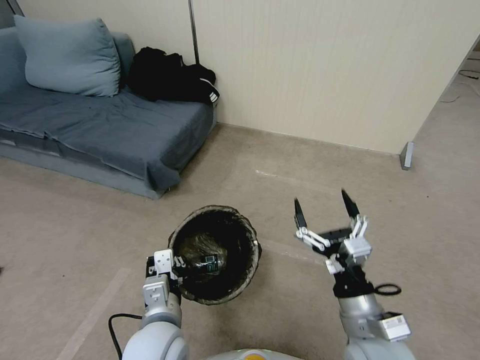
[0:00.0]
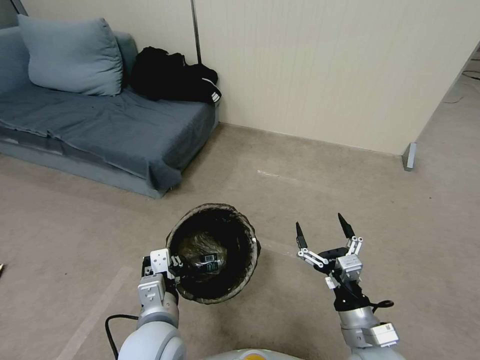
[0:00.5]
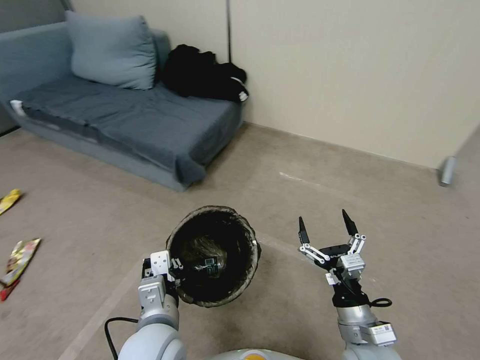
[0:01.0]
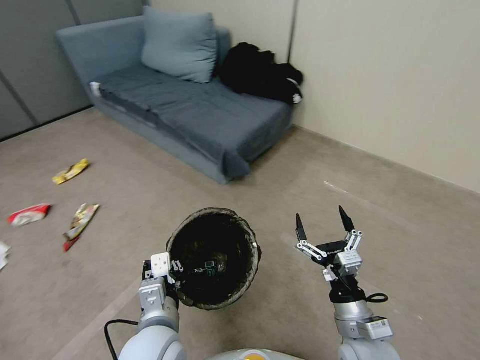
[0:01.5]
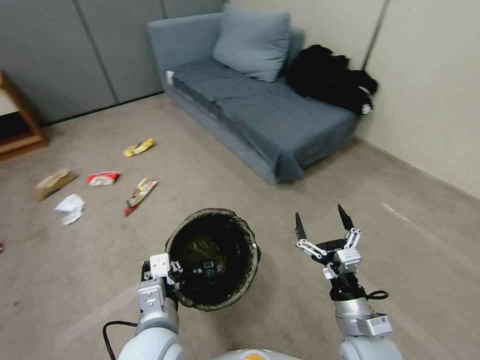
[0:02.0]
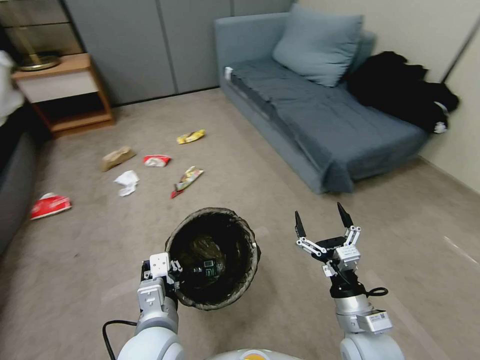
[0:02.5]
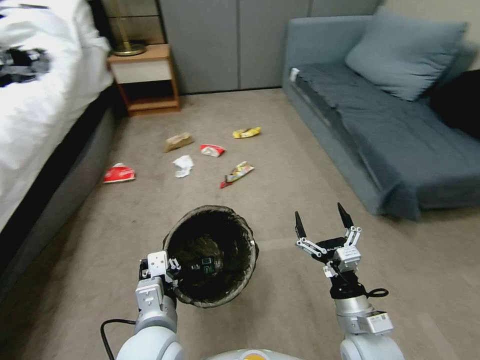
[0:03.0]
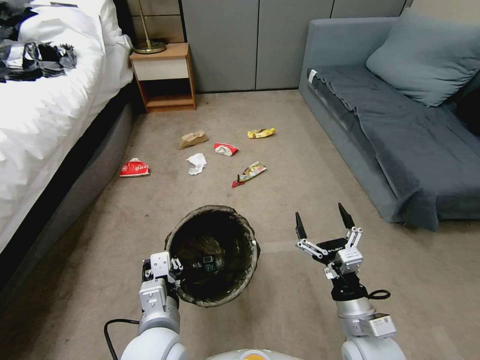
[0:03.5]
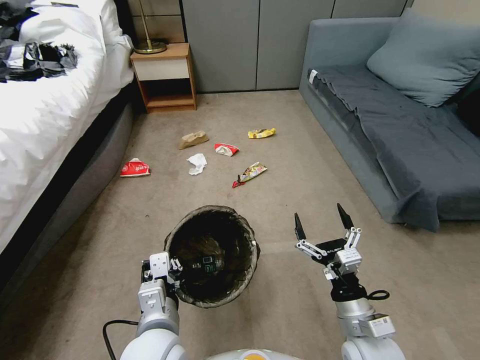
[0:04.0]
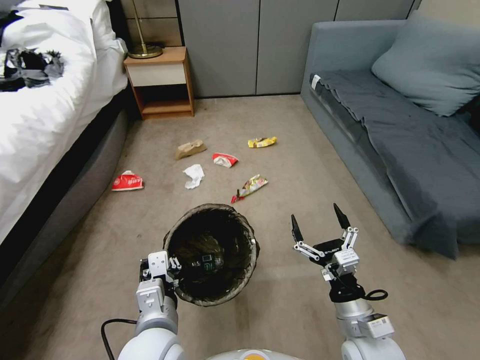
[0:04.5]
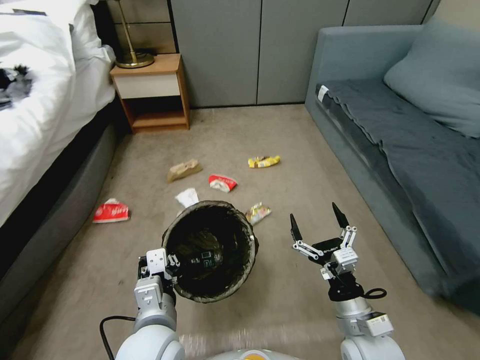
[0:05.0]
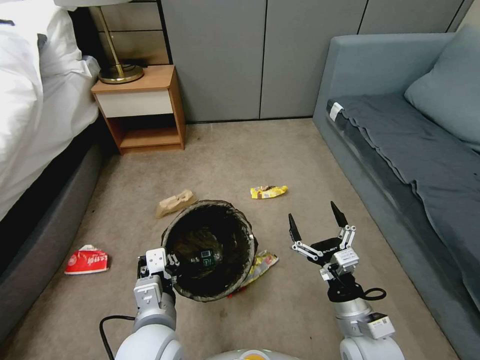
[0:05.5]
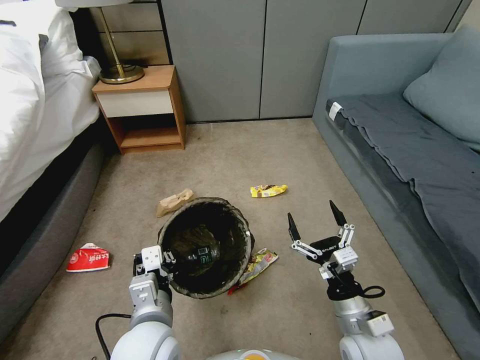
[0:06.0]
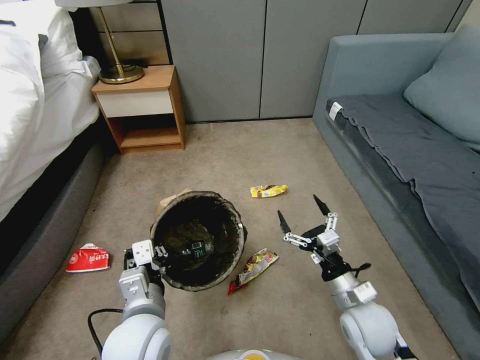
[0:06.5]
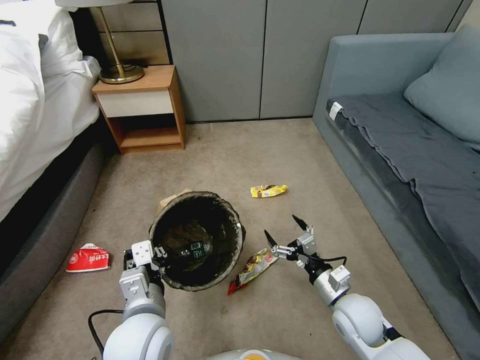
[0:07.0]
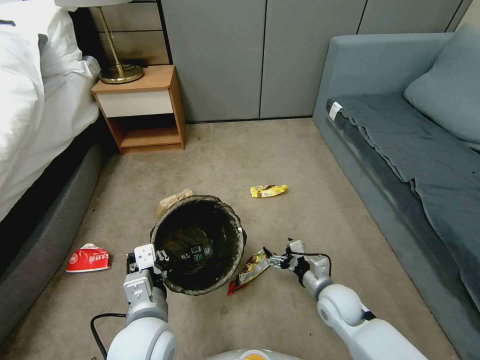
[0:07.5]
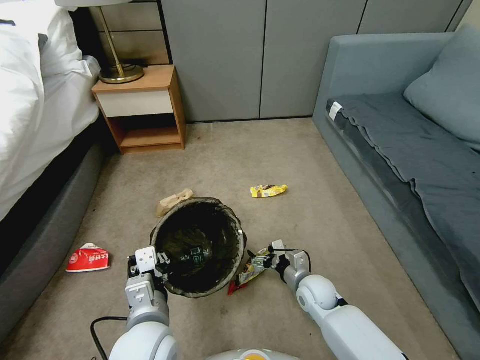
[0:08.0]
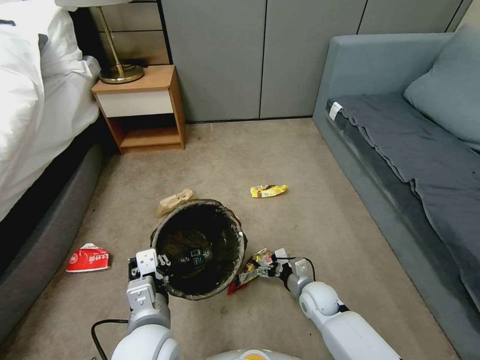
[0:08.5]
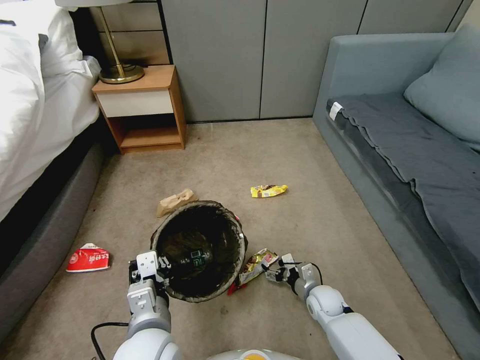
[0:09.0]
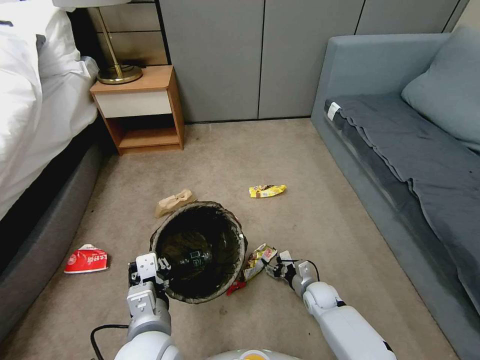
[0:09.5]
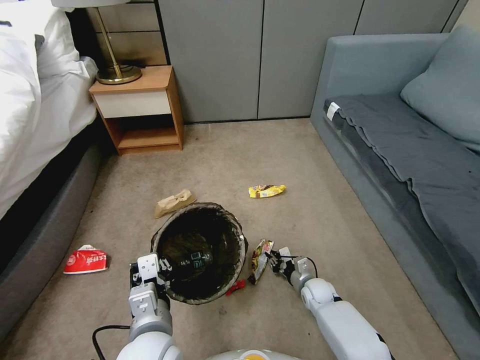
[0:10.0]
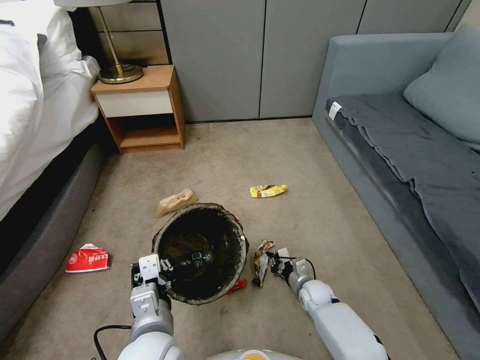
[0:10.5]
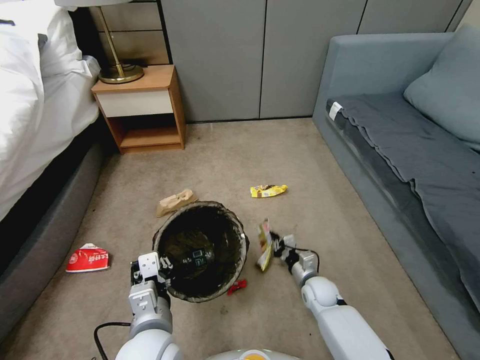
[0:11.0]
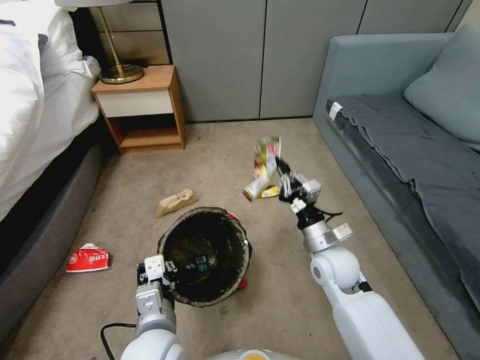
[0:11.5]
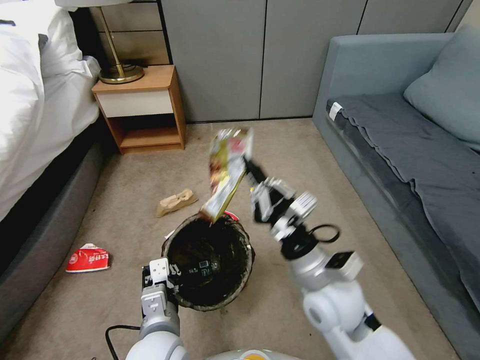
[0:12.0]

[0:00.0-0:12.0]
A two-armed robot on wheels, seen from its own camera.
Task of the whole recording: Pick up the trash bin, then pick up the garbage from the floor and place it into the trash bin.
0.0 to 2.0 s: The right gripper is displaced downward by some 5 cm.
6.0 to 8.0 s: The right gripper moves forward and downward, about 20 cm.
8.0 to 10.0 s: The right gripper heads downward, covering some 10 cm, and closes its fingers.
10.0 to 12.0 s: The right gripper travels upward by approximately 35 cm.

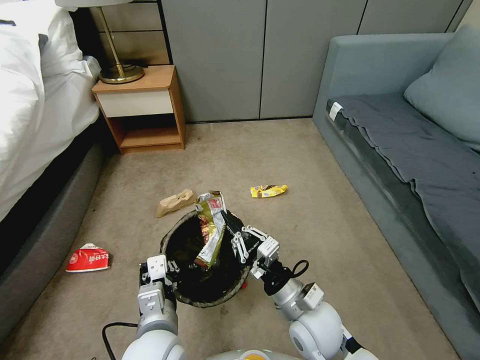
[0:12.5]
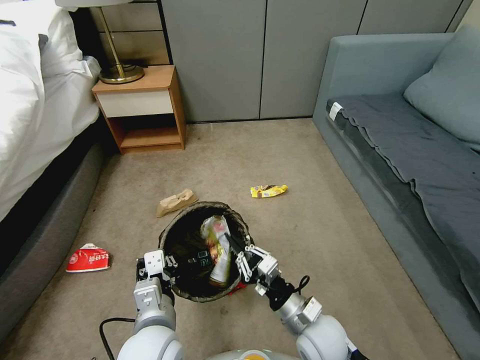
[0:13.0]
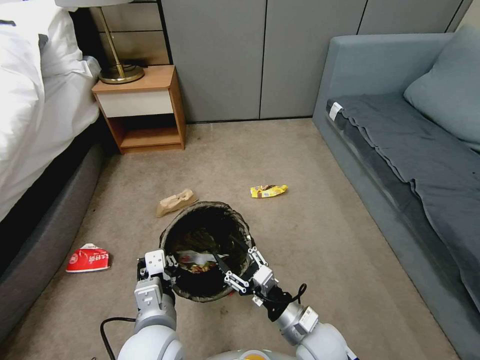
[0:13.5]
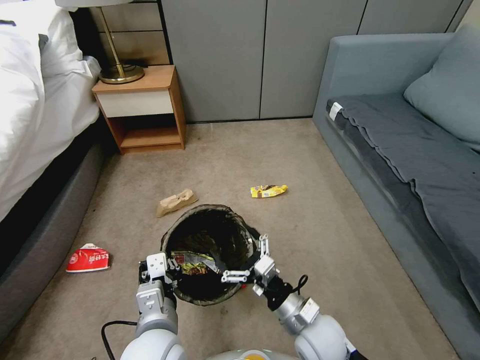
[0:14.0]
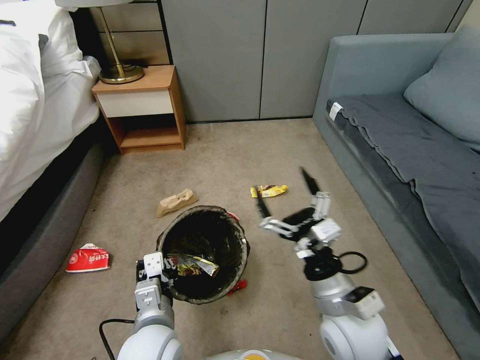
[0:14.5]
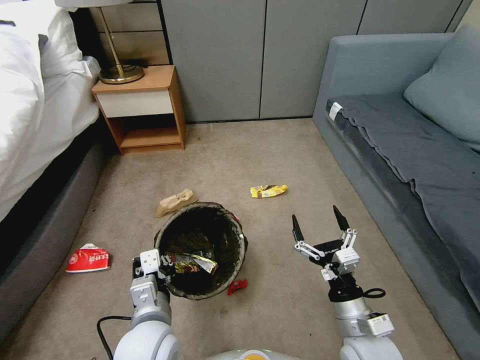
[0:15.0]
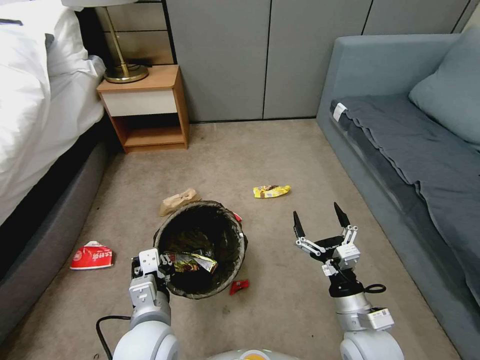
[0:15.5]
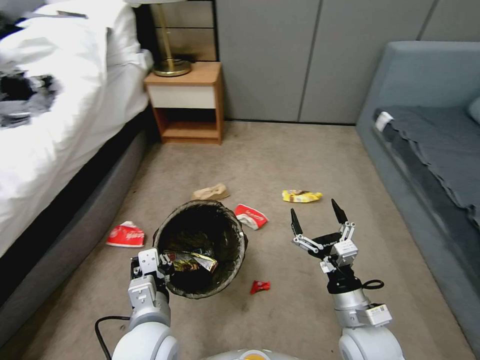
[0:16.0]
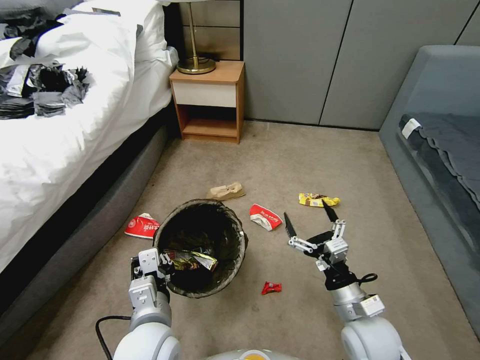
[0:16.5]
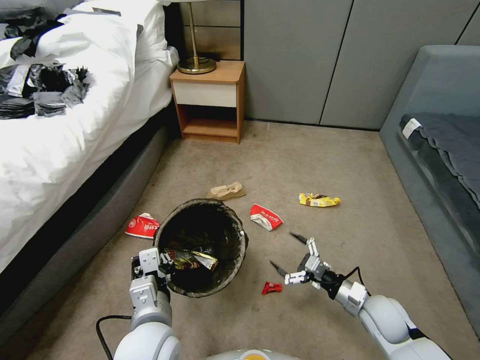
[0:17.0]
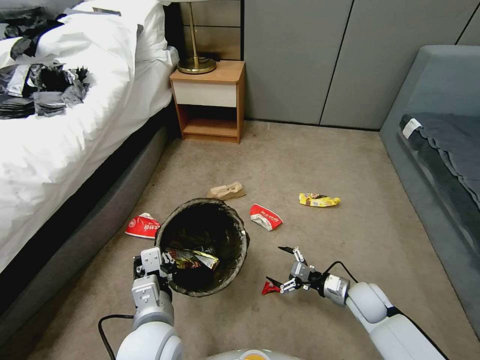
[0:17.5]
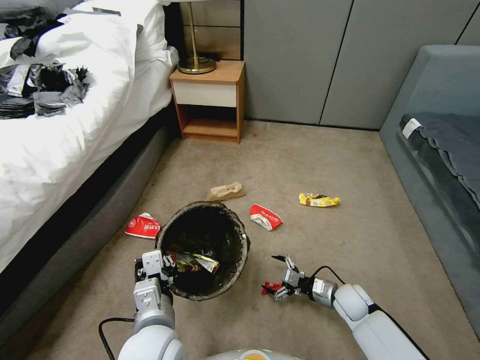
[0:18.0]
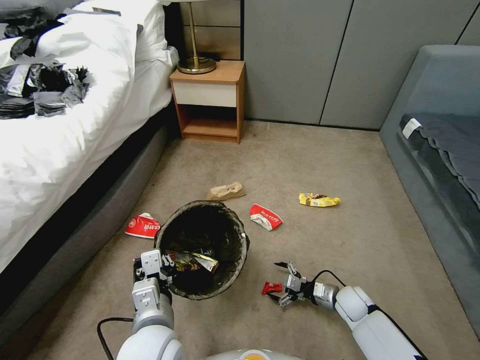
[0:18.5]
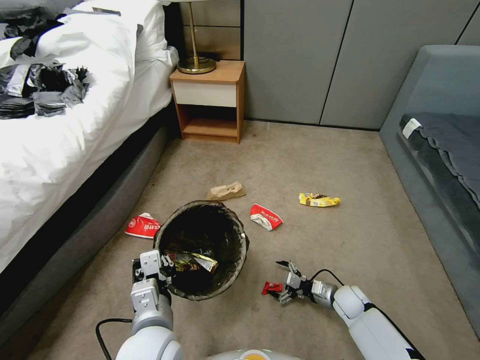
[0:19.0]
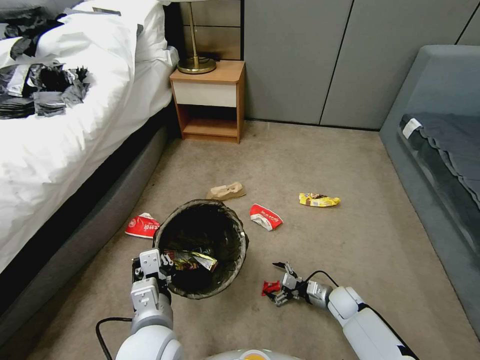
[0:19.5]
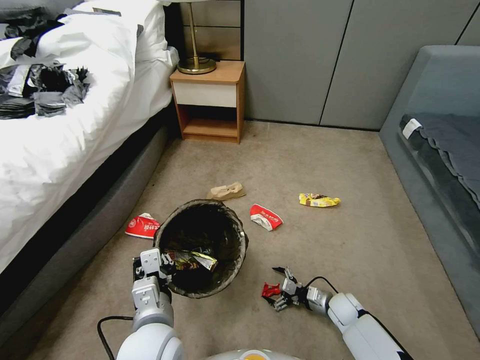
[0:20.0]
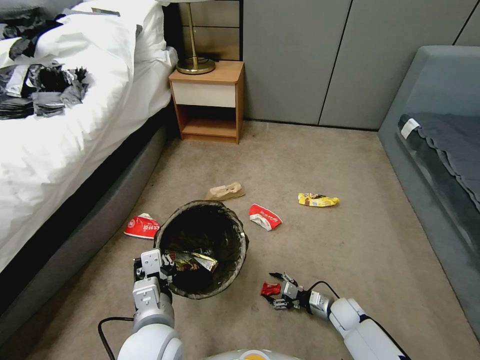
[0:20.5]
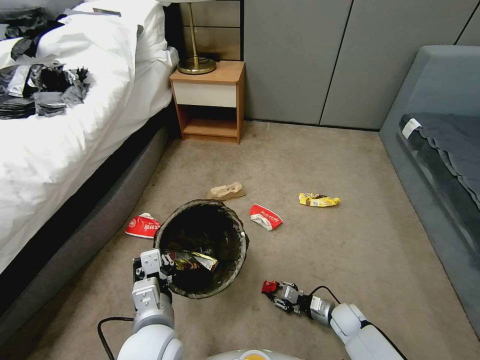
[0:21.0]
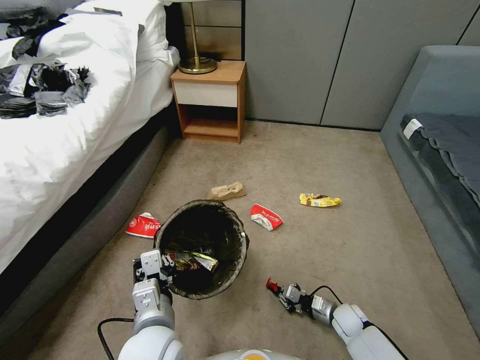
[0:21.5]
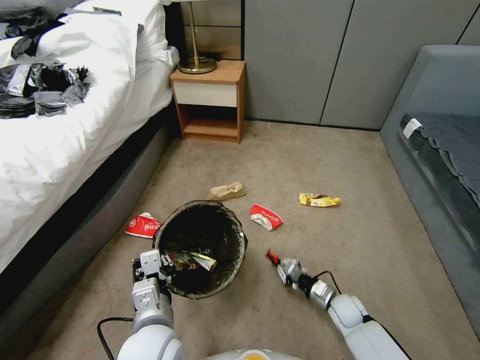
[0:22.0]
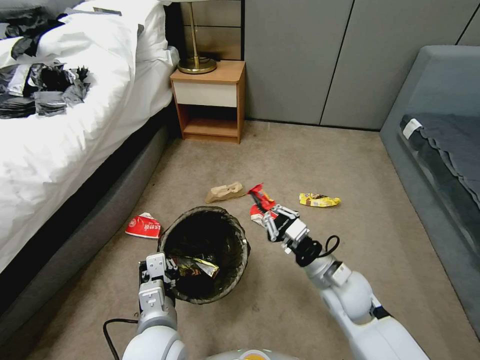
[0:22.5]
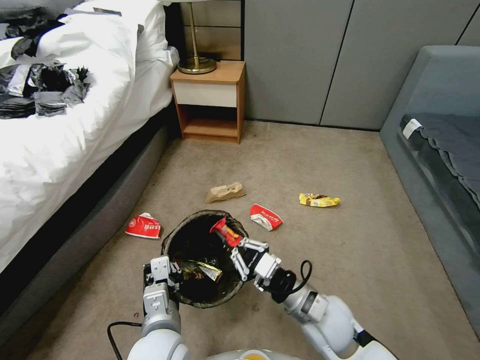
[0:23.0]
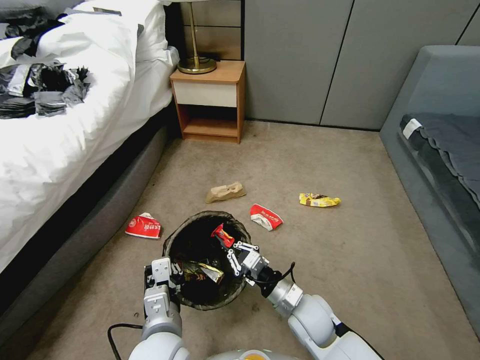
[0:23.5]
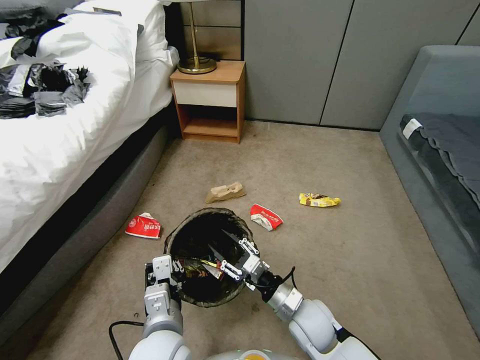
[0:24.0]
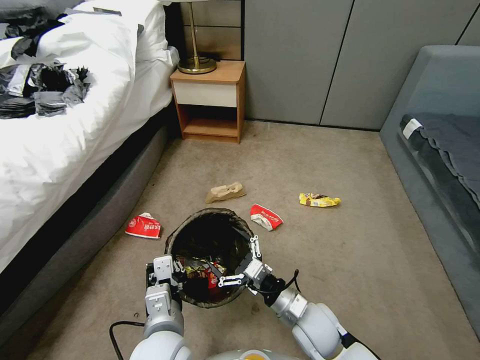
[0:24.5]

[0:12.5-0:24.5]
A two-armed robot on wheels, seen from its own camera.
Task of the whole recording: Pick up the trash bin, then pick up the garbage from the floor and place it into the trash bin.
12.5 to 14.5 s: The right gripper moves upward, some 5 cm, and opens its fingers.
14.5 to 16.5 s: The right gripper goes approximately 10 cm downward and to the right.
16.5 to 18.5 s: The right gripper heads downward and forward, covering some 20 cm.
18.5 to 20.5 s: The right gripper shifts by some 5 cm.
20.5 to 22.5 s: The right gripper moves upward, roughly 25 cm, and closes its fingers.
22.5 to 24.5 s: The right gripper moves downward, to the left and backward, about 10 cm, and opens up.

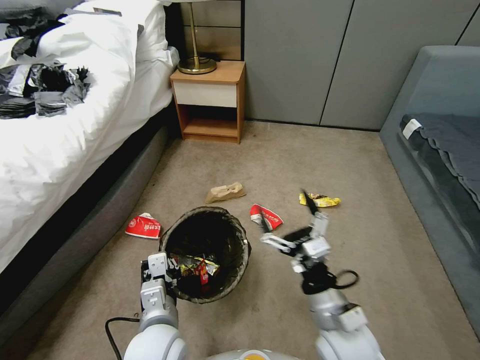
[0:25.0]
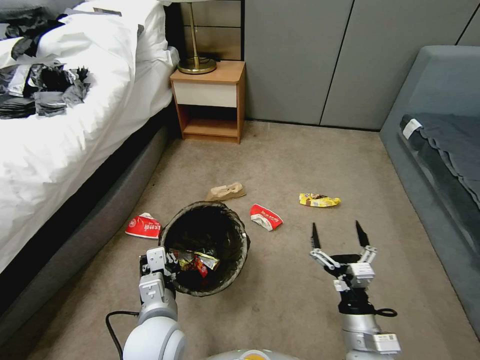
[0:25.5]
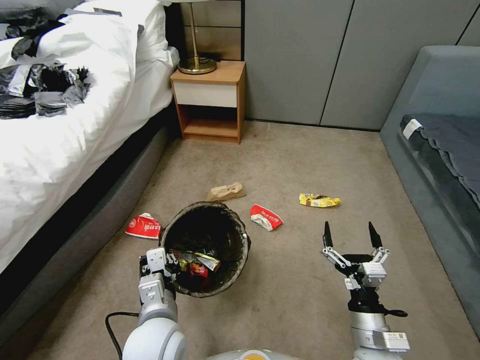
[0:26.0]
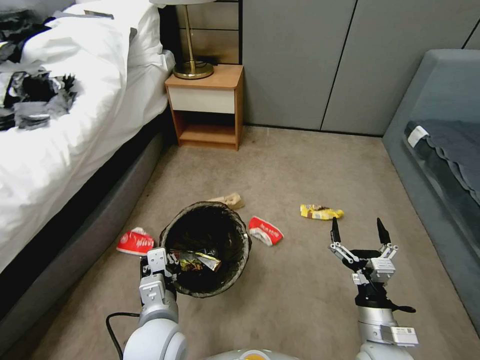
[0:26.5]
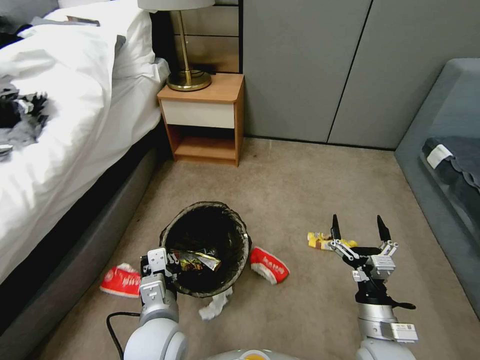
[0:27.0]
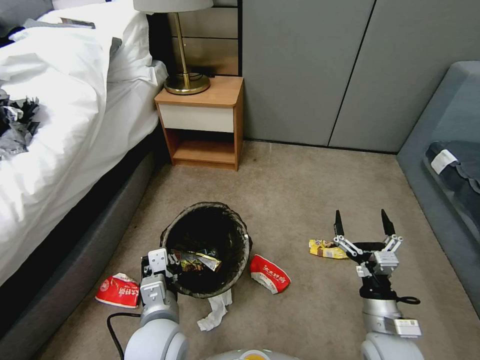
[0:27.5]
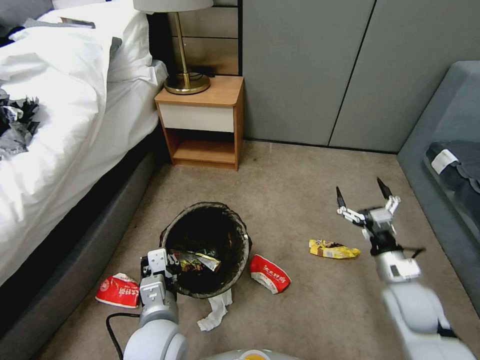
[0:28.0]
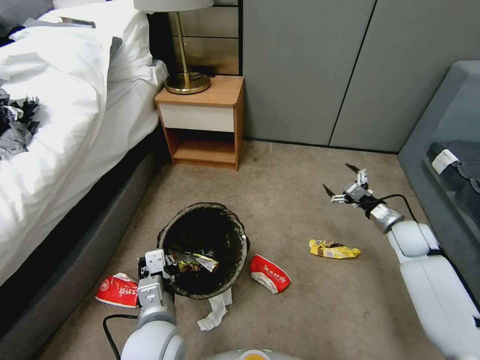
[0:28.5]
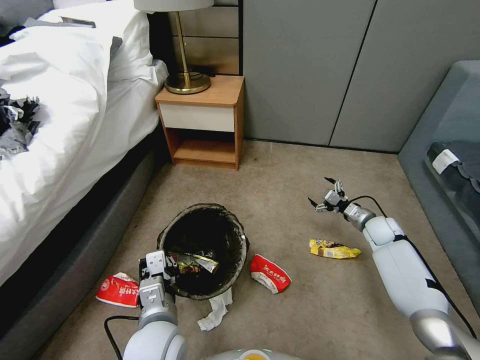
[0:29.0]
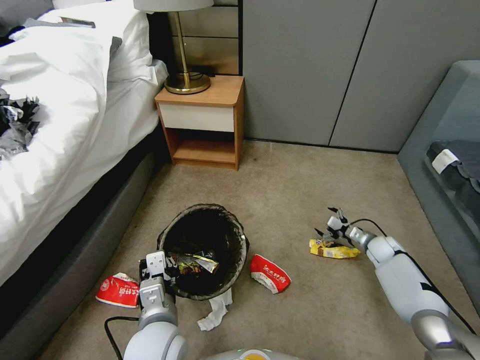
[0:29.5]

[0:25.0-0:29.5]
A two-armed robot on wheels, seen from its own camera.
Task of the whole recording: Pick up the trash bin, then pick up the garbage from the floor and place it into the trash bin.
25.0 to 27.0 s: The right gripper goes some 10 cm to the right and downward.
27.0 to 29.5 s: The right gripper moves forward, to the right and downward, about 35 cm.
